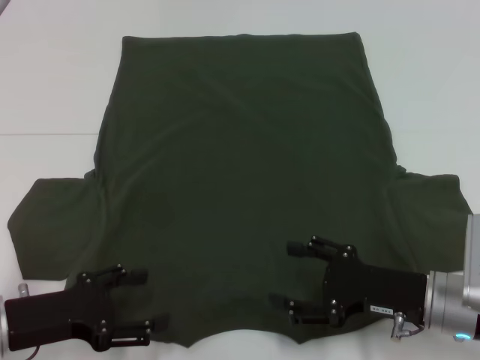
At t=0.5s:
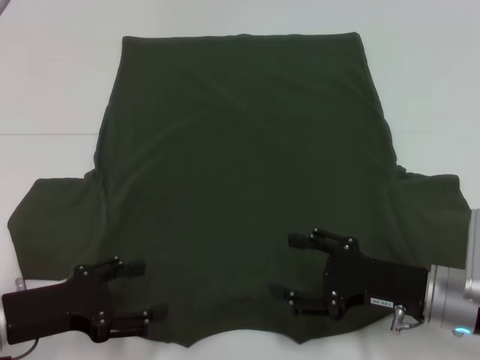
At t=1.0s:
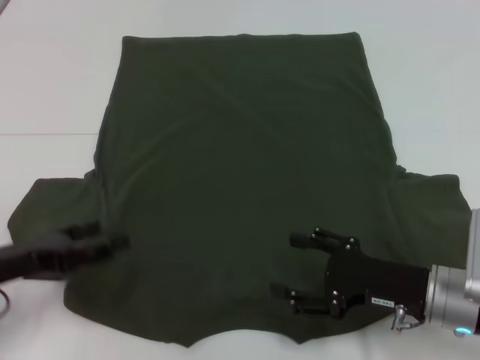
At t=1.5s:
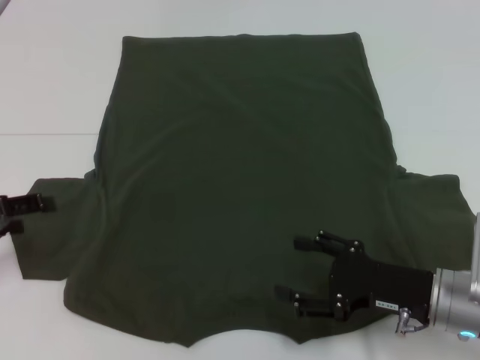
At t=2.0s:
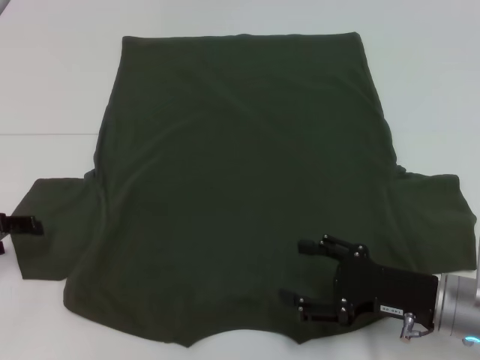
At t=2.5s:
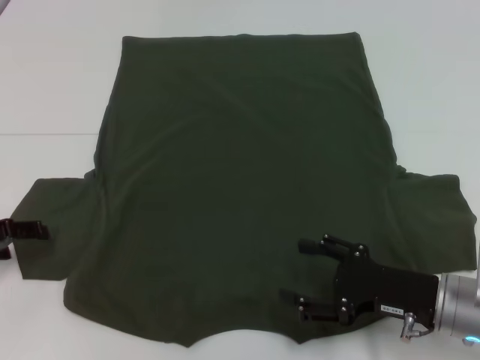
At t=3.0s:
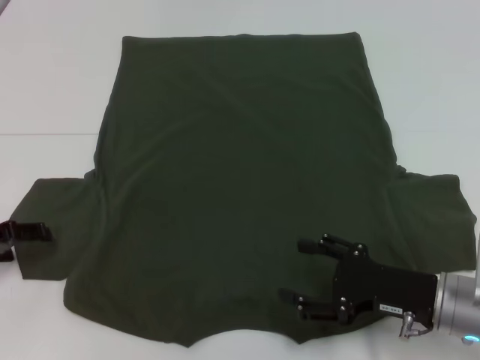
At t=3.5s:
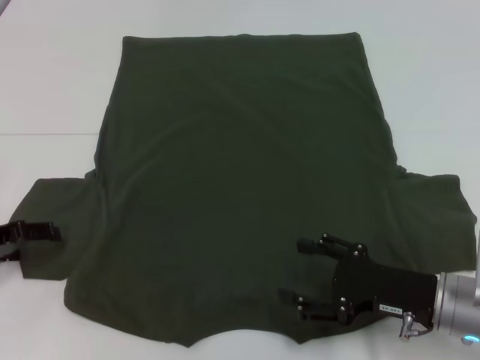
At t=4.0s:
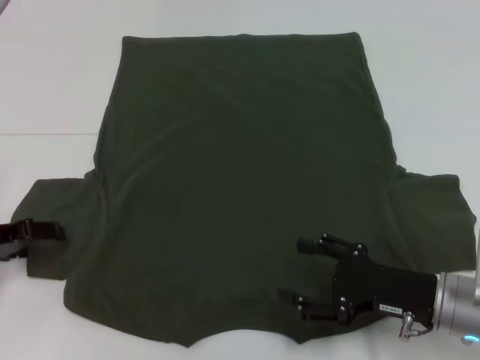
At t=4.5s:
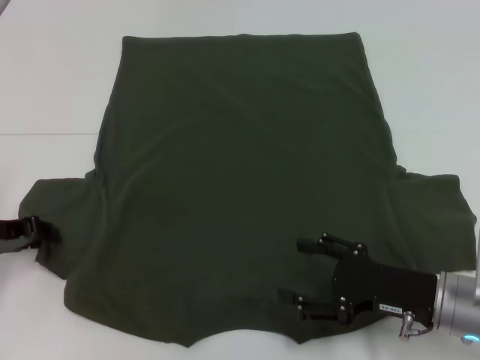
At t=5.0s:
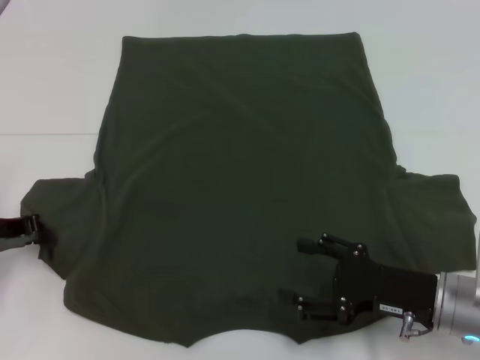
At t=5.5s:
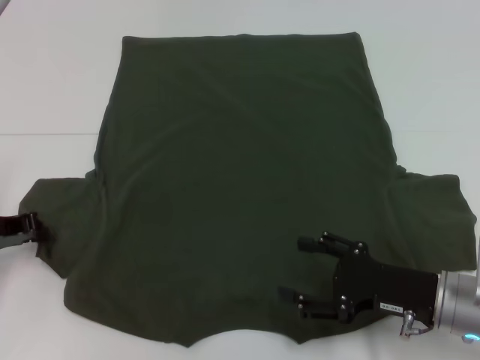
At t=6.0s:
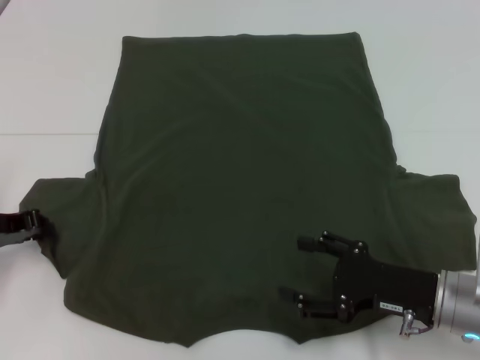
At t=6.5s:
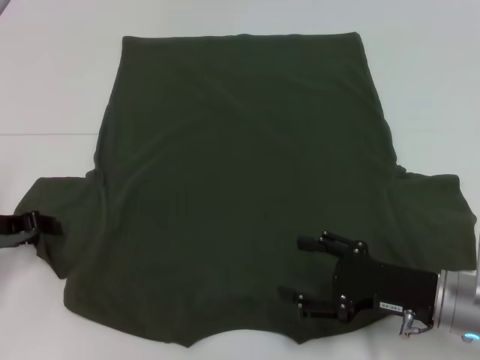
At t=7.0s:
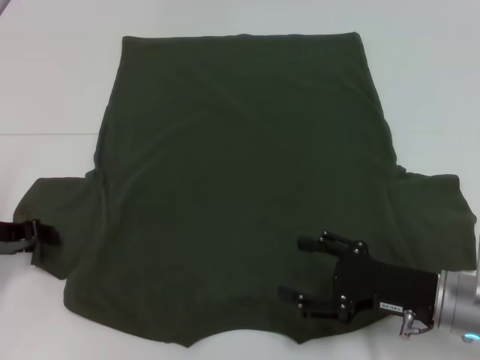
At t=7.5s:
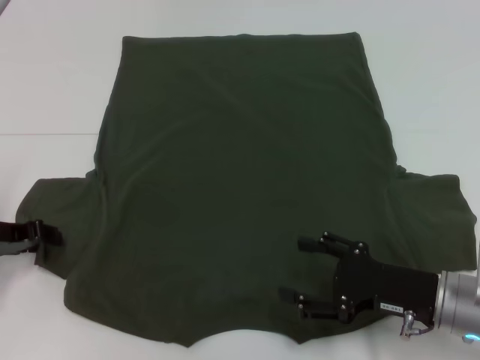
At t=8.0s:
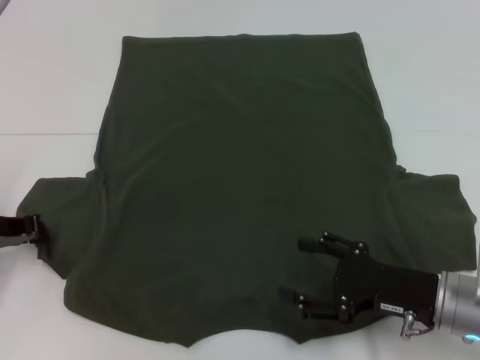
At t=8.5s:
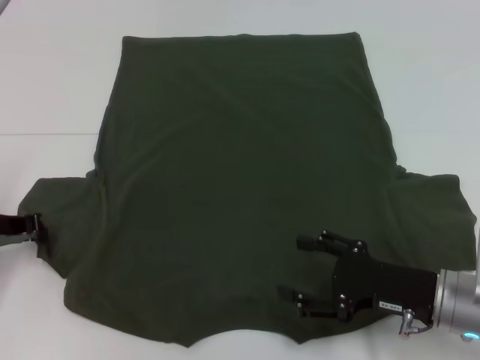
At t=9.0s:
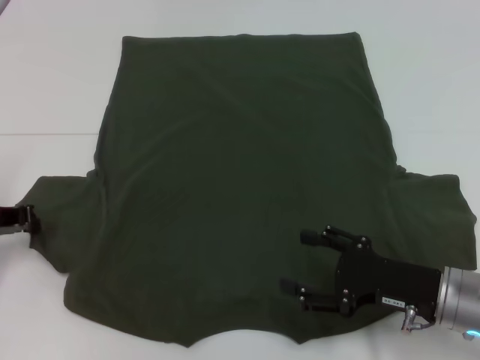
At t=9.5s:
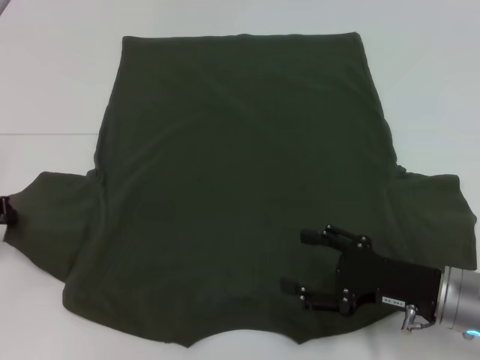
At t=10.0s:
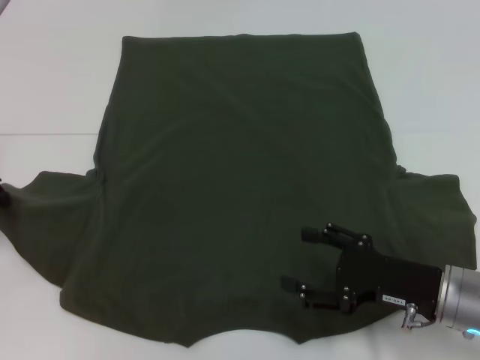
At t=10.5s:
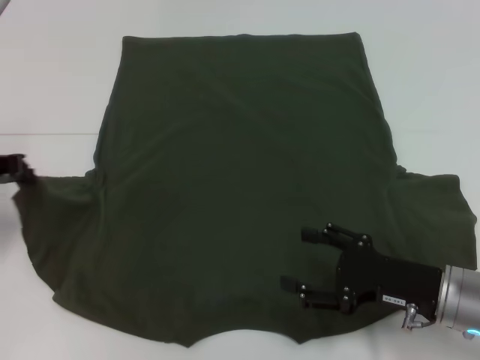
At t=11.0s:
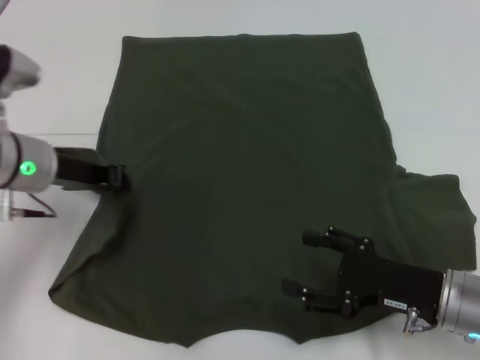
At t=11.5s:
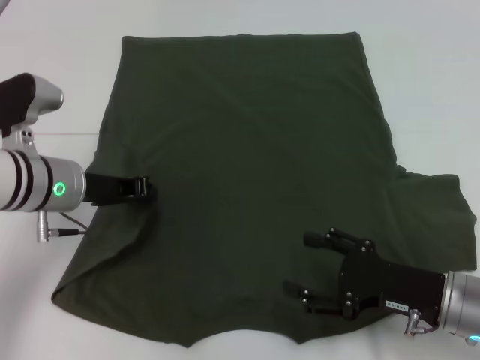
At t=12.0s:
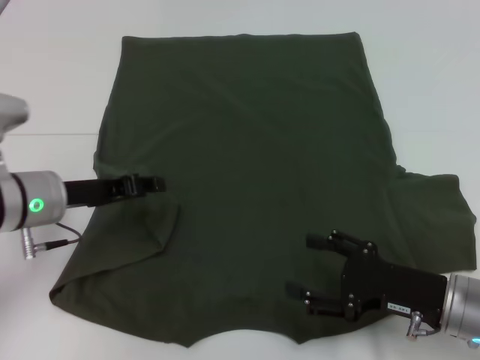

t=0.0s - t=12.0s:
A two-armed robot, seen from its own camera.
Step, t=0.0s - t=11.5s: Fold the bottom left sleeve with your left hand.
t=0.0s - t=2.0s: The left gripper shifts about 15 cm to the left and forward.
t=2.0s - t=4.0s: The grippers move only a little.
t=4.0s - t=6.0s: The left gripper closes.
t=8.0s - t=10.0s: The left gripper ends up approximately 5 cm from where it was.
t=10.0s - t=12.0s: The left gripper travels to the right by about 10 cm.

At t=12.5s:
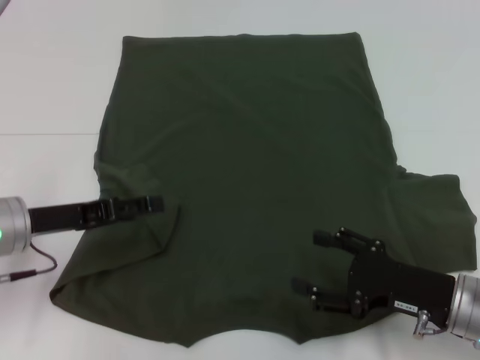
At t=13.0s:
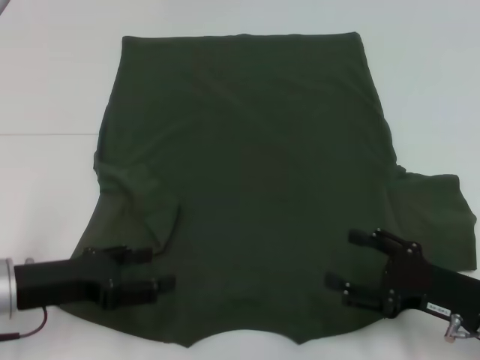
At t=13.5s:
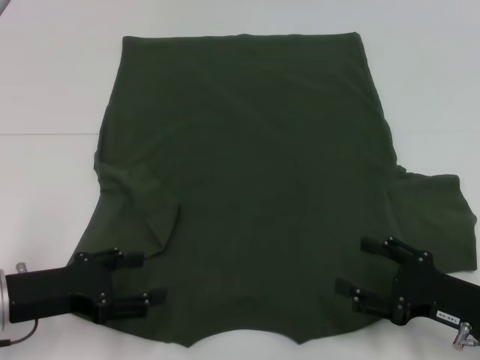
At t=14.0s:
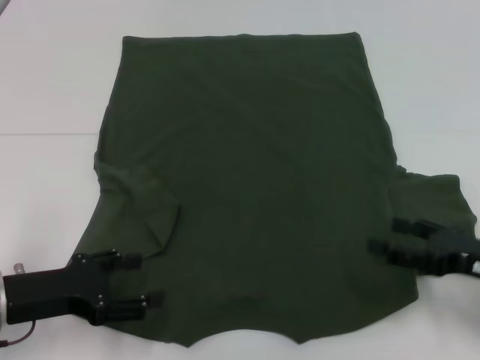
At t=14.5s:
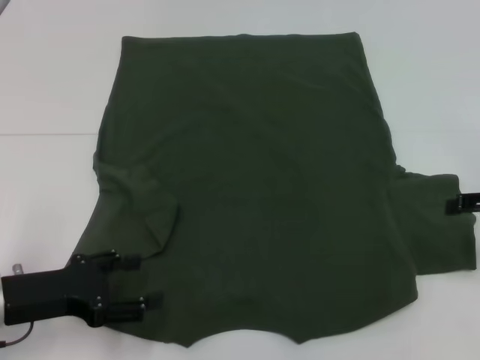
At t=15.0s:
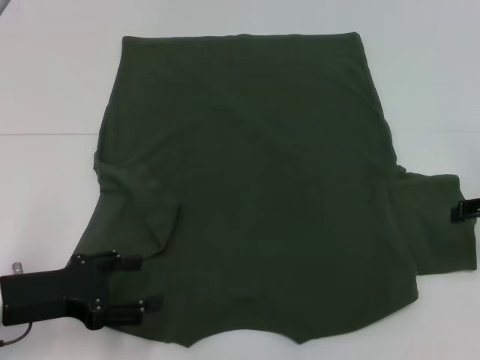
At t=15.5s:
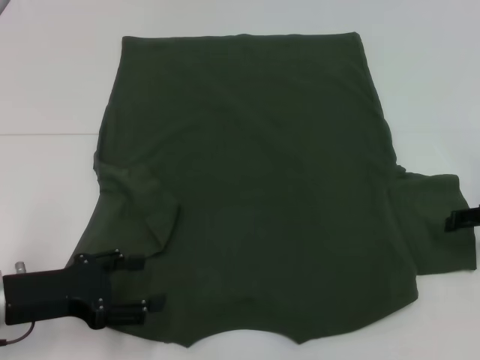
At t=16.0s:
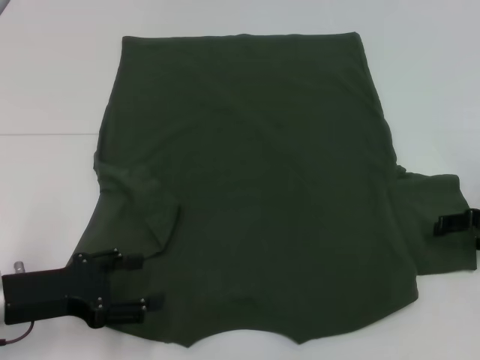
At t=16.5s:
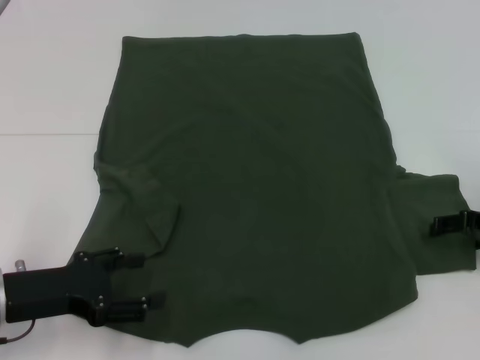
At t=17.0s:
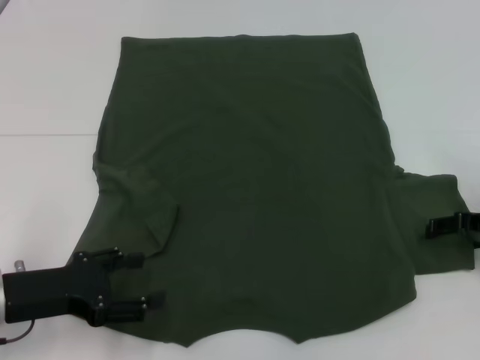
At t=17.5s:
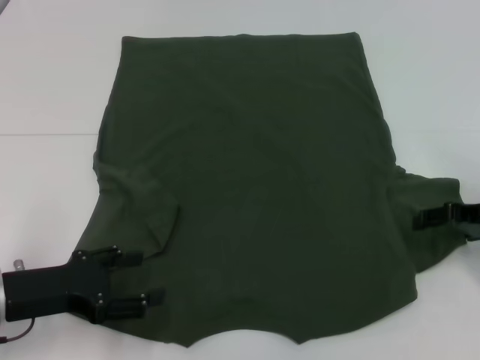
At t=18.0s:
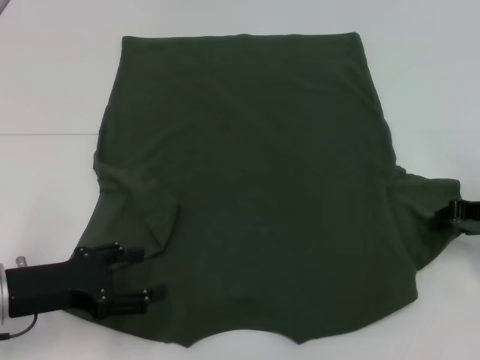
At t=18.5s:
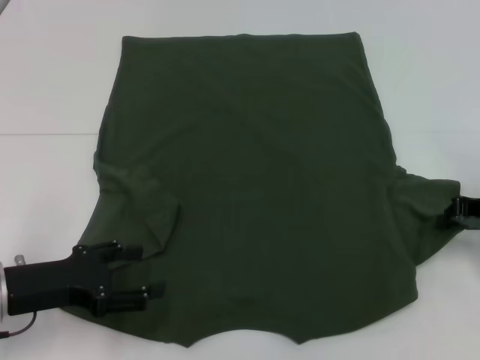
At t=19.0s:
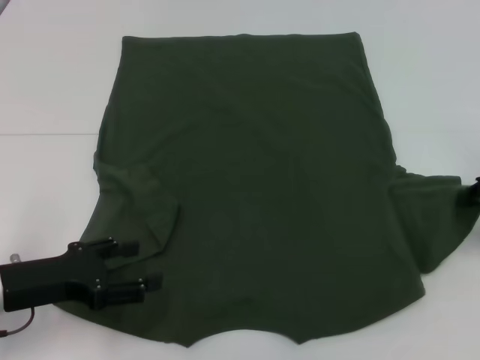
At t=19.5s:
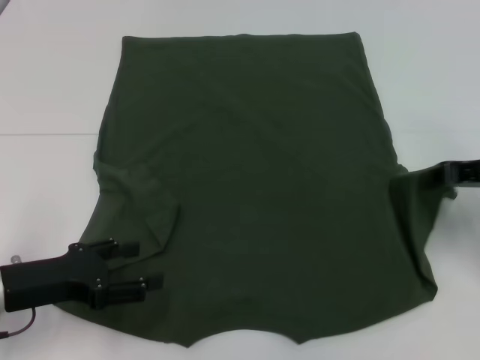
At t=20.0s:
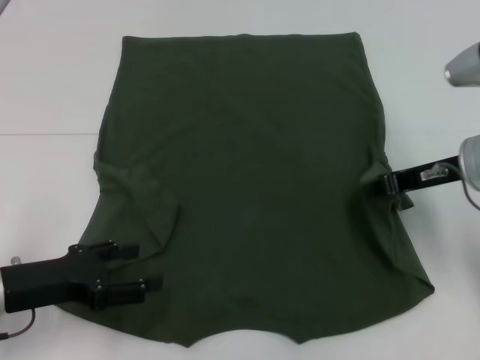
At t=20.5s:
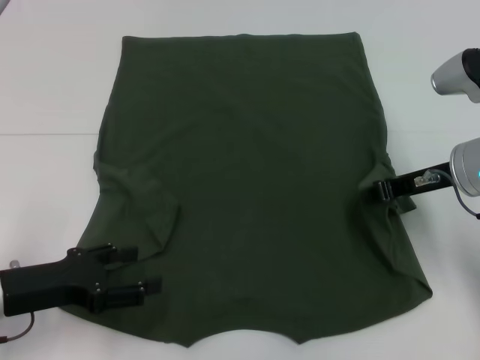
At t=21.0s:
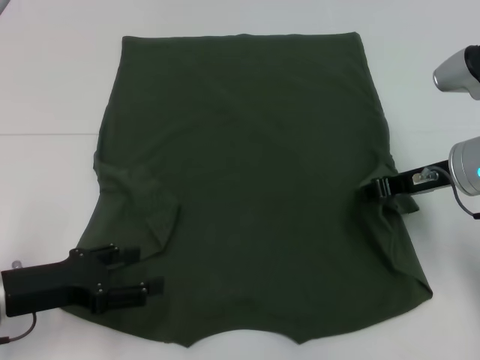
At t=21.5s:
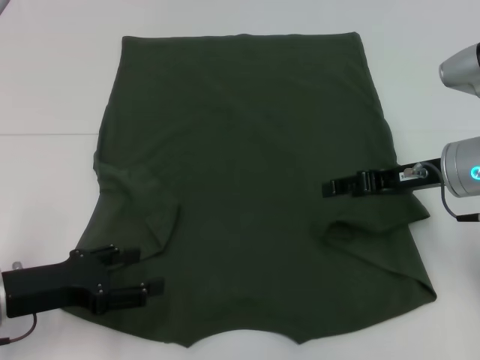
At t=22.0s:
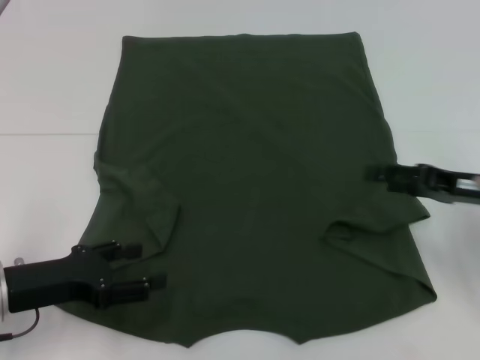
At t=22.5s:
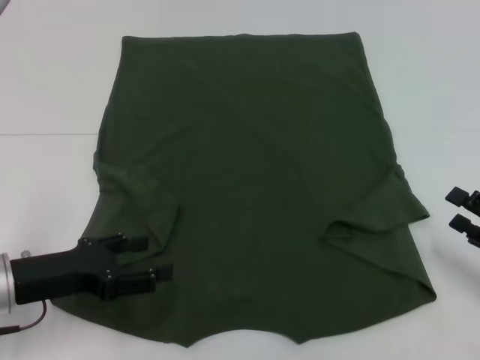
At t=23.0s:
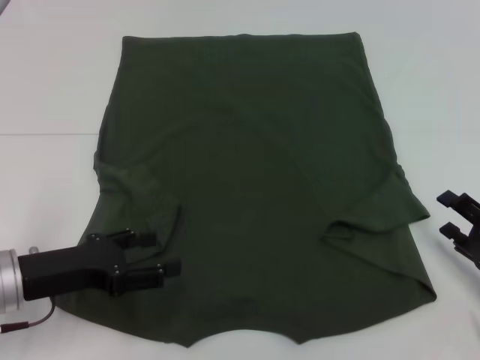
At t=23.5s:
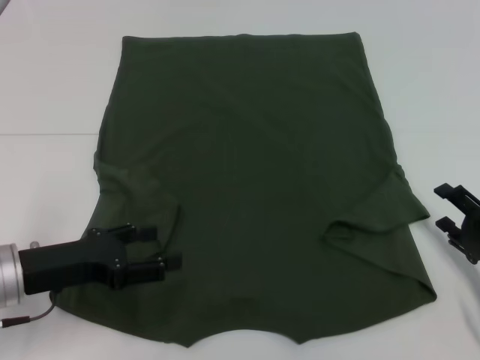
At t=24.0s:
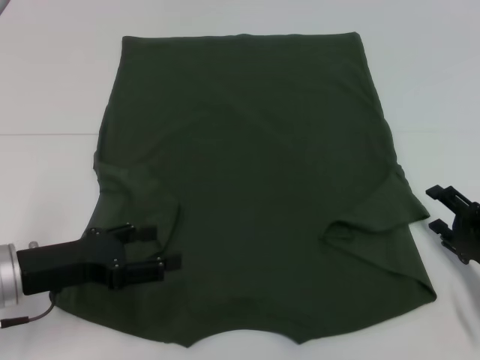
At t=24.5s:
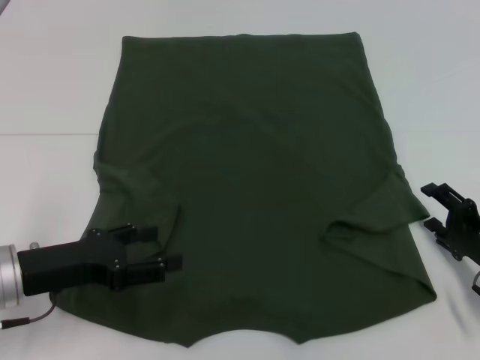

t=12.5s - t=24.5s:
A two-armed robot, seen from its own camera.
t=12.5s - t=14.5s: The right gripper travels to the right, upward and forward by roughly 15 cm. The left gripper moves backward, some 5 cm.
t=14.5s - t=16.5s: The right gripper is displaced downward by about 5 cm.
t=16.5s - t=18.5s: The right gripper closes.
t=18.5s - t=20.5s: The right gripper goes roughly 10 cm to the left.
t=20.5s - t=22.5s: The right gripper goes approximately 20 cm backward, to the right and downward, and opens up.
t=22.5s - t=24.5s: The right gripper is displaced to the left by approximately 5 cm.

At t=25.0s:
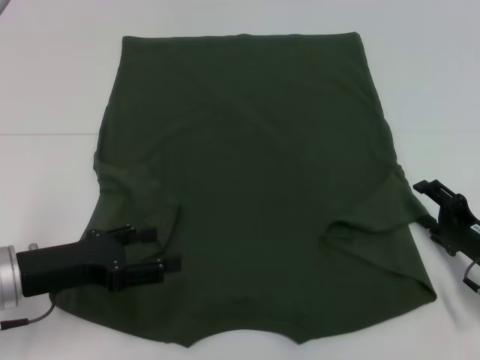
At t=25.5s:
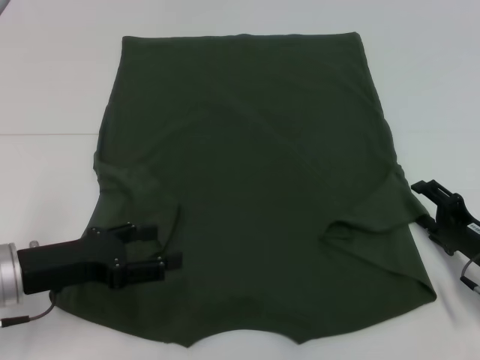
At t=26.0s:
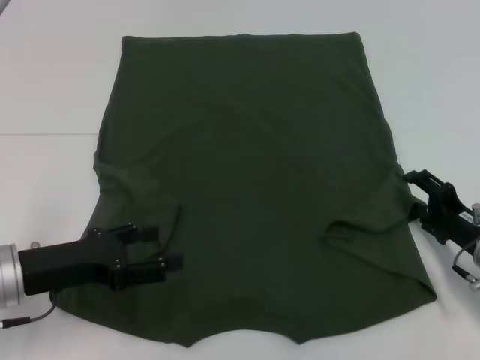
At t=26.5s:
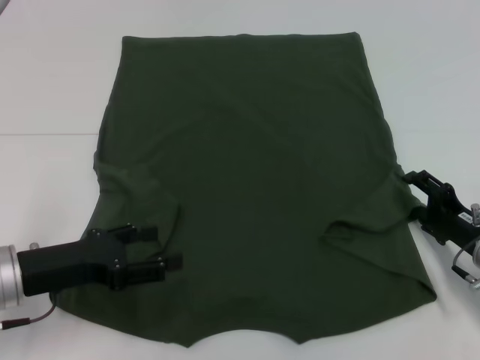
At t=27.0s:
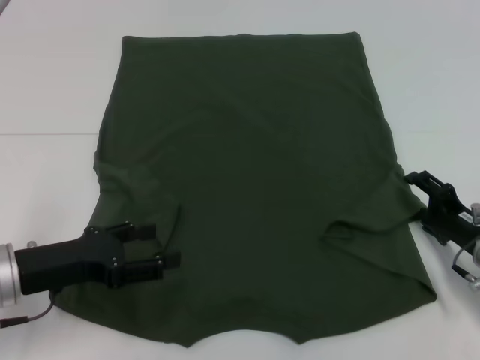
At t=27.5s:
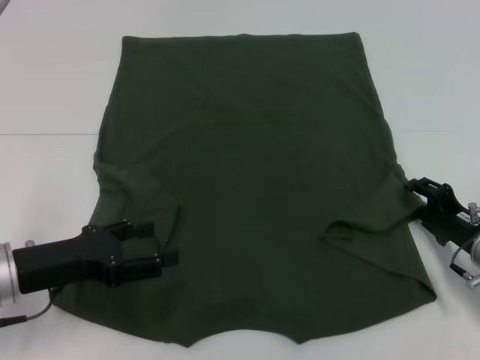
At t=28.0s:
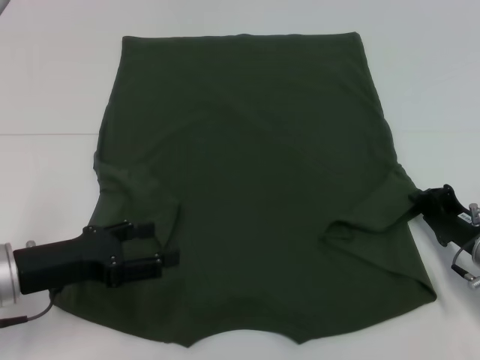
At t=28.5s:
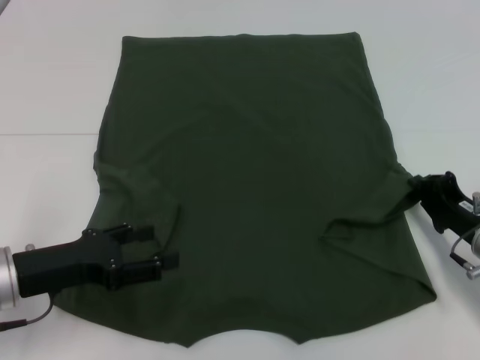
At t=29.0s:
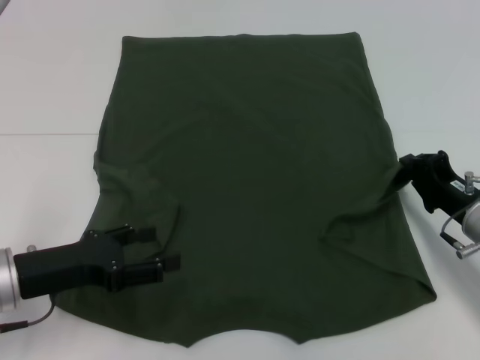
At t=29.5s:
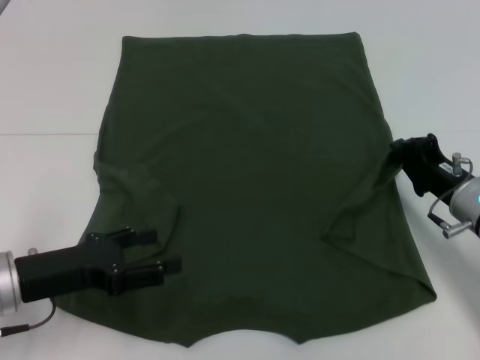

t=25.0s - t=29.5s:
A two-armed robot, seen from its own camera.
t=25.0s - t=27.0s: The grippers move only a little.
t=27.0s - t=29.5s: The right gripper moves approximately 5 cm, and closes its fingers.
